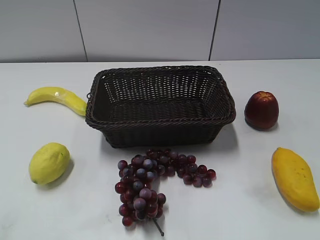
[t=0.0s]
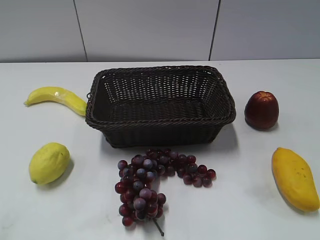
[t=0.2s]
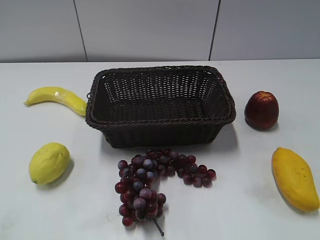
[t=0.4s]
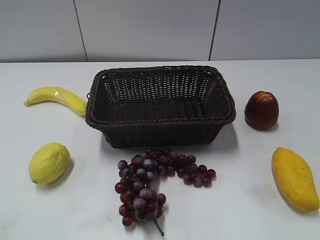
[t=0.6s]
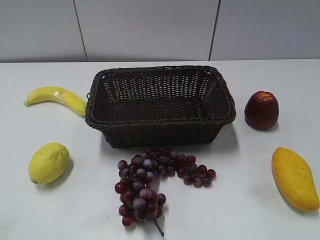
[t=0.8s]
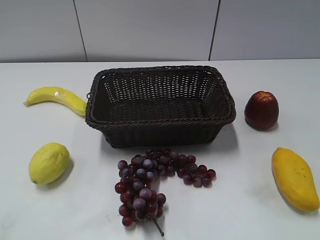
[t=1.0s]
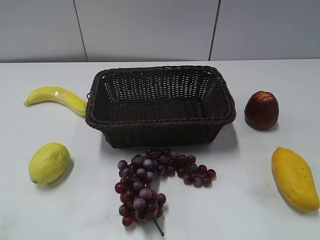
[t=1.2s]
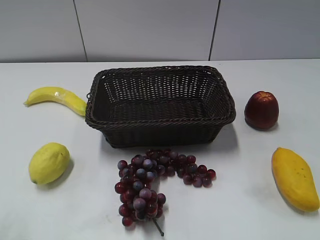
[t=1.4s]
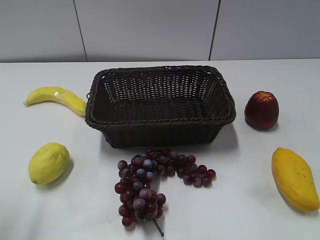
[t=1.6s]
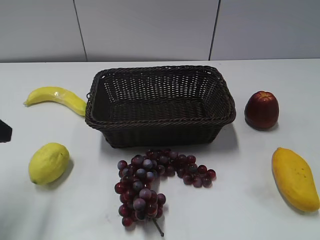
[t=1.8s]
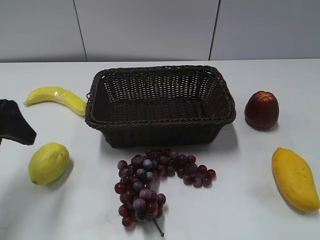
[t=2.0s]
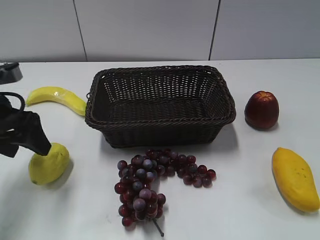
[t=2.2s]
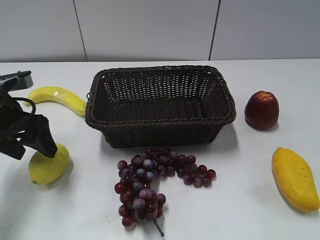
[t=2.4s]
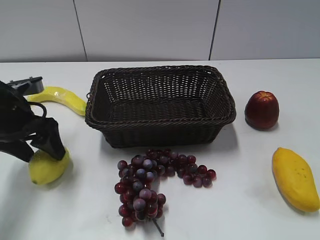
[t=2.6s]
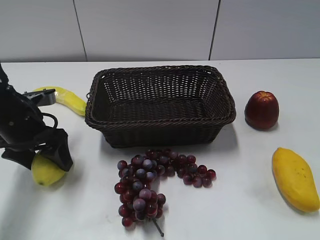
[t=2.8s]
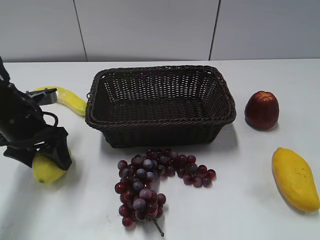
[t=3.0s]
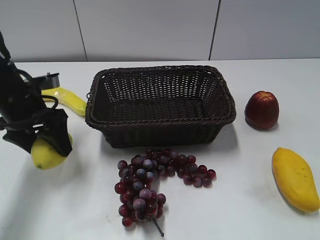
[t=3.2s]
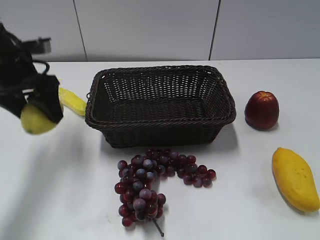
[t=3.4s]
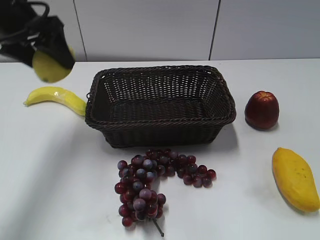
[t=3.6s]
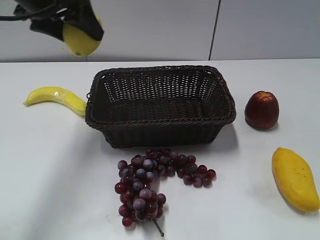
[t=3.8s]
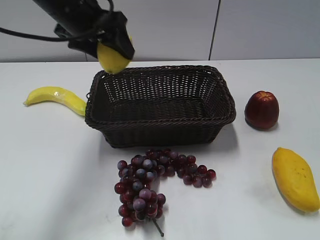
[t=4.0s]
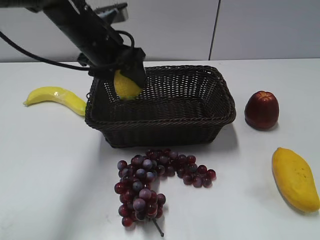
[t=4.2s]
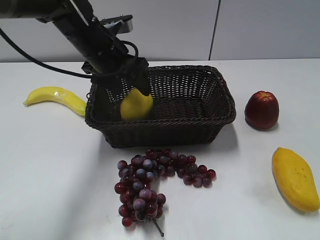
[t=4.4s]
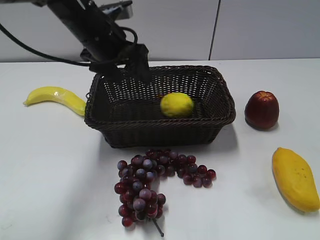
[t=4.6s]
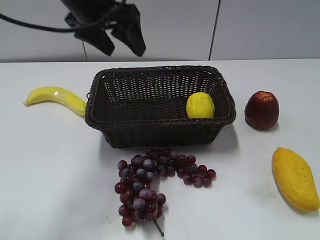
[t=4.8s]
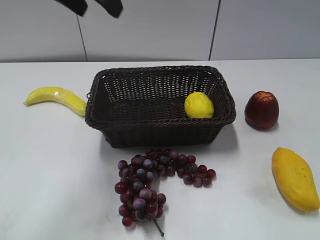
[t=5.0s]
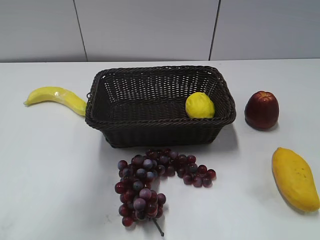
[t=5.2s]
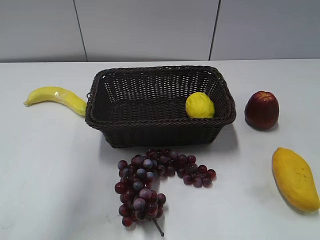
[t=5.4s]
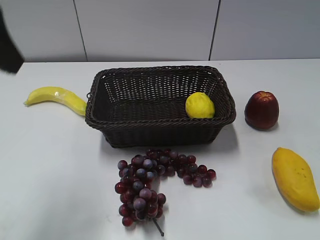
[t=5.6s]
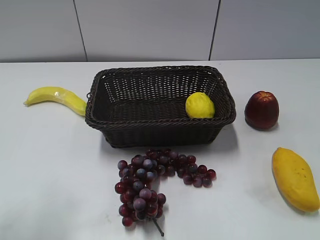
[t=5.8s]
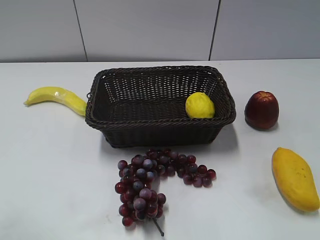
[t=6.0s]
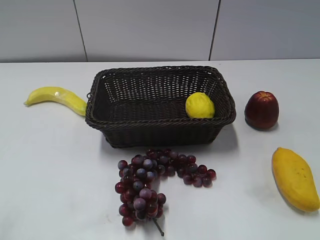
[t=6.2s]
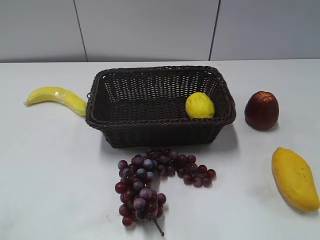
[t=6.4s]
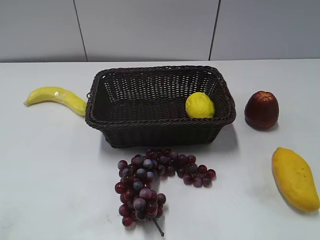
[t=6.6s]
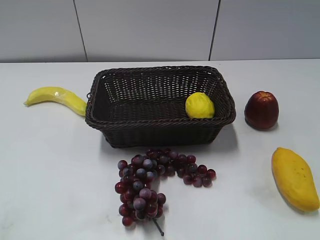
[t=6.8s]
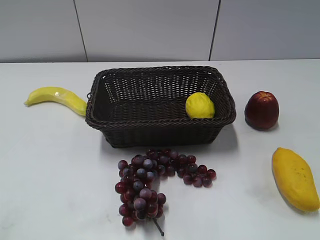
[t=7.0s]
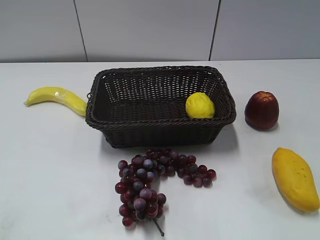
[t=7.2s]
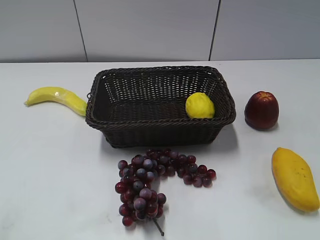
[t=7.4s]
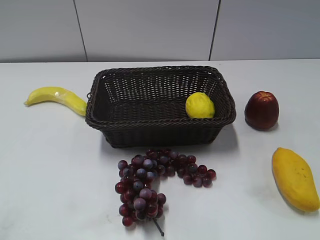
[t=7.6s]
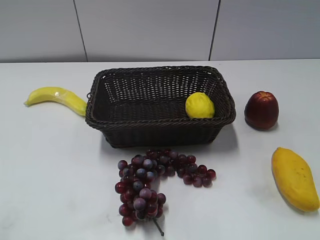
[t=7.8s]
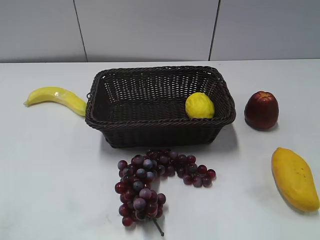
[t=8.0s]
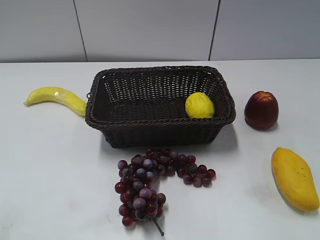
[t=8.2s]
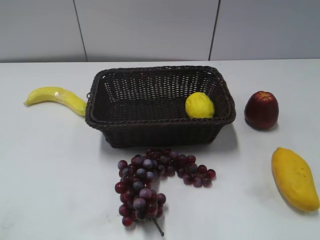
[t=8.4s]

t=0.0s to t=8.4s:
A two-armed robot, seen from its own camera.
Step, t=1.8s to t=3.0s: Grasp the lemon with left gripper.
Step, t=3.4s to t=4.8s: Place the lemon in the basket with left gripper.
t=1.4s to t=2.8s: The left gripper heads forward and downward, covering roughly 25 cm.
t=2.8s to t=4.2s: The left gripper heads to the right, upward and forward, covering approximately 20 cm.
t=4.2s to t=5.6s: The left gripper goes roughly 25 cm backward, upward and to the left.
t=5.6s to t=7.0s: The left gripper goes some 20 cm backward, downward and to the left.

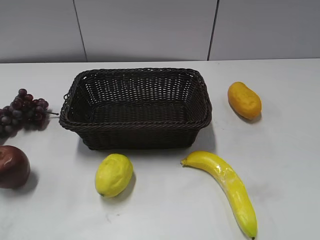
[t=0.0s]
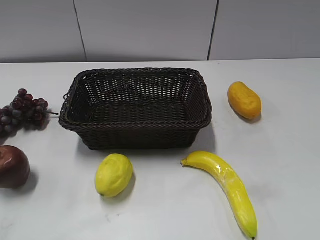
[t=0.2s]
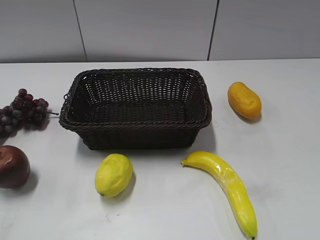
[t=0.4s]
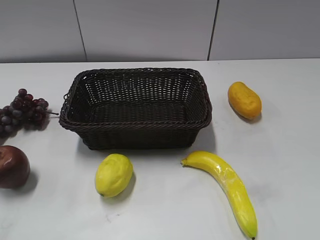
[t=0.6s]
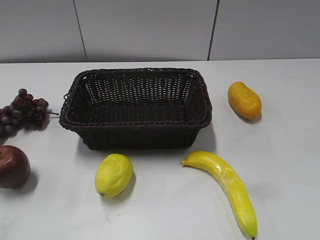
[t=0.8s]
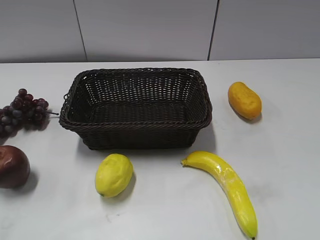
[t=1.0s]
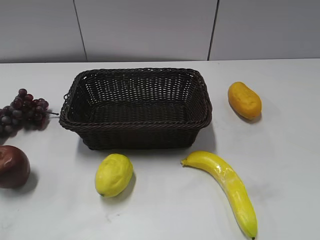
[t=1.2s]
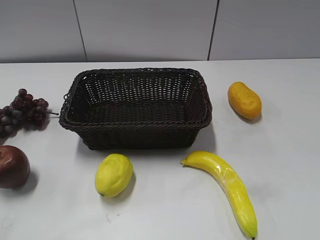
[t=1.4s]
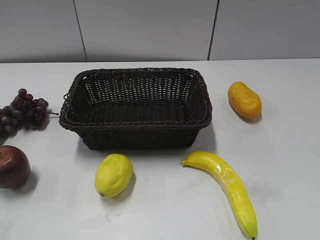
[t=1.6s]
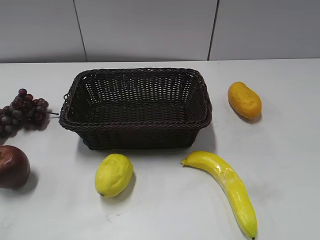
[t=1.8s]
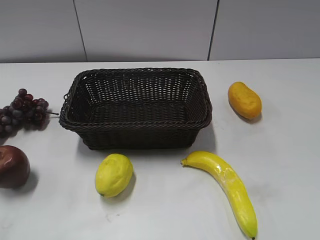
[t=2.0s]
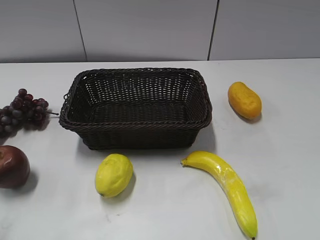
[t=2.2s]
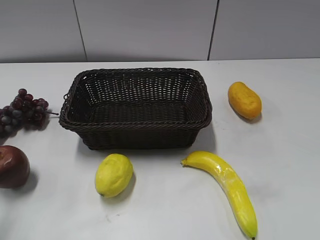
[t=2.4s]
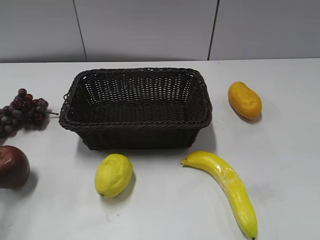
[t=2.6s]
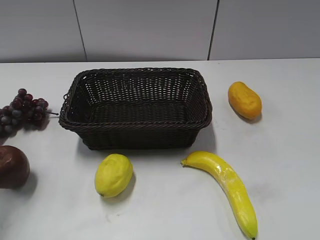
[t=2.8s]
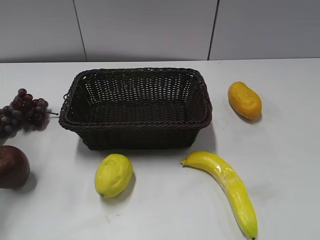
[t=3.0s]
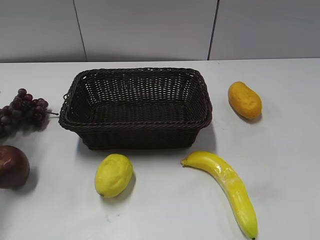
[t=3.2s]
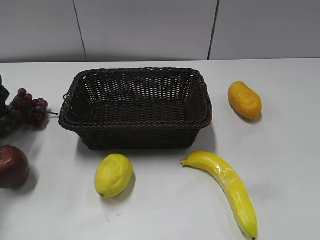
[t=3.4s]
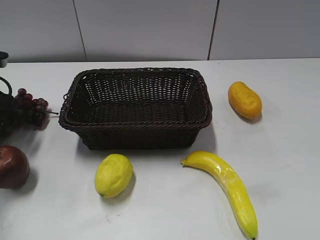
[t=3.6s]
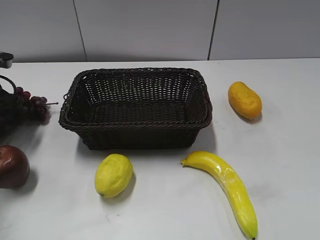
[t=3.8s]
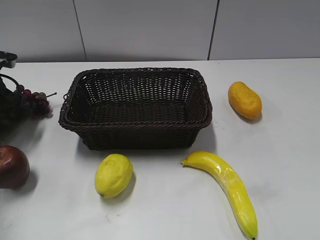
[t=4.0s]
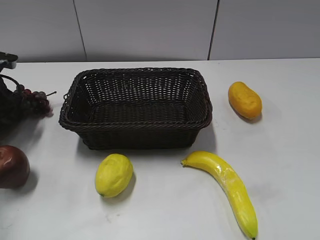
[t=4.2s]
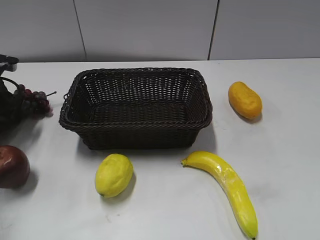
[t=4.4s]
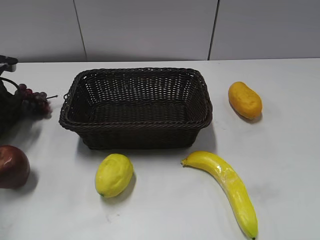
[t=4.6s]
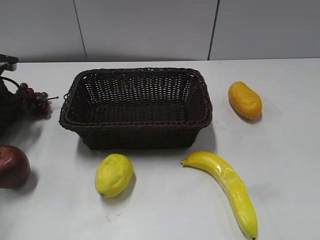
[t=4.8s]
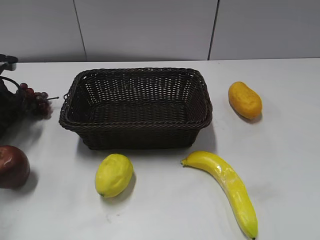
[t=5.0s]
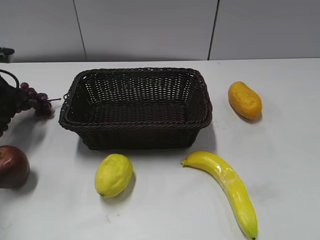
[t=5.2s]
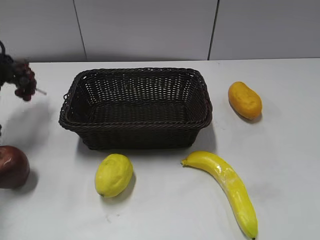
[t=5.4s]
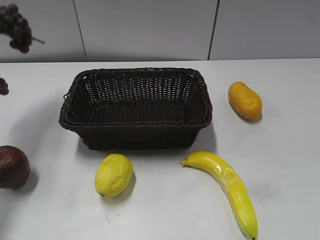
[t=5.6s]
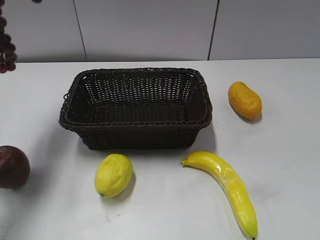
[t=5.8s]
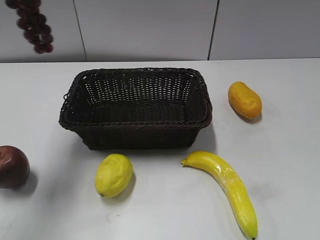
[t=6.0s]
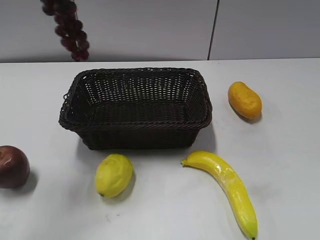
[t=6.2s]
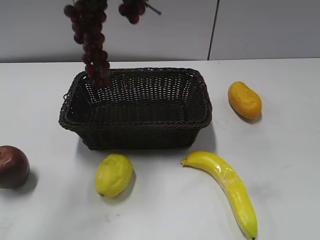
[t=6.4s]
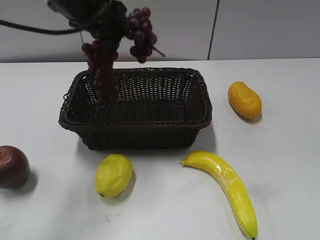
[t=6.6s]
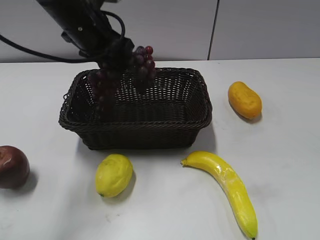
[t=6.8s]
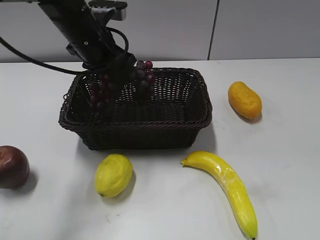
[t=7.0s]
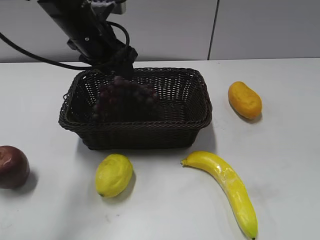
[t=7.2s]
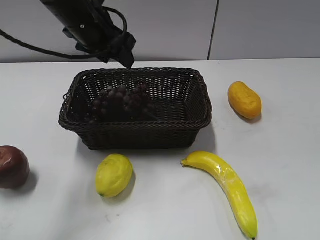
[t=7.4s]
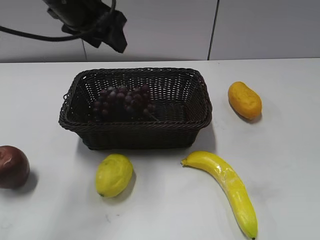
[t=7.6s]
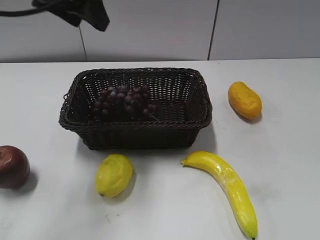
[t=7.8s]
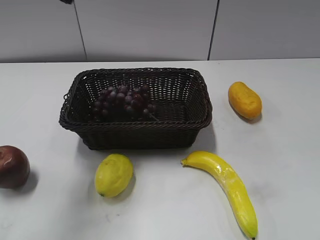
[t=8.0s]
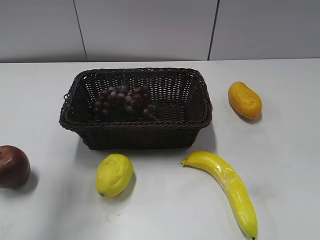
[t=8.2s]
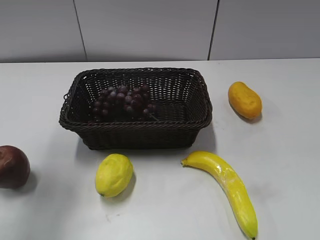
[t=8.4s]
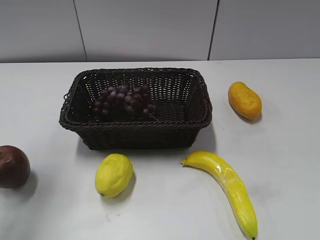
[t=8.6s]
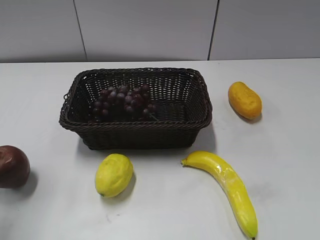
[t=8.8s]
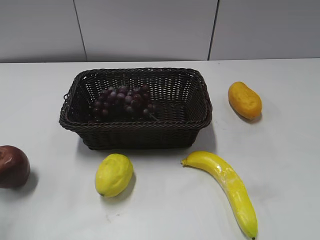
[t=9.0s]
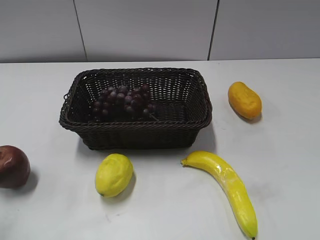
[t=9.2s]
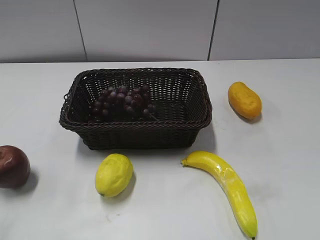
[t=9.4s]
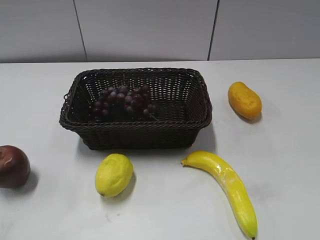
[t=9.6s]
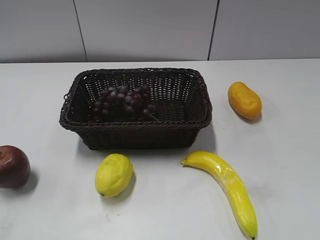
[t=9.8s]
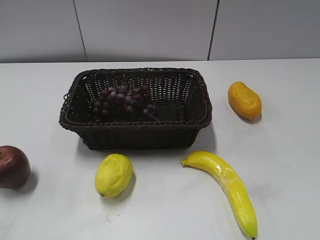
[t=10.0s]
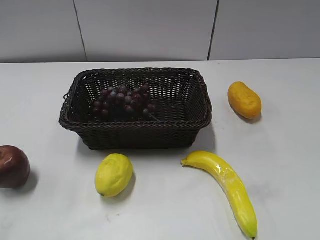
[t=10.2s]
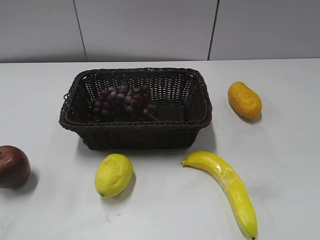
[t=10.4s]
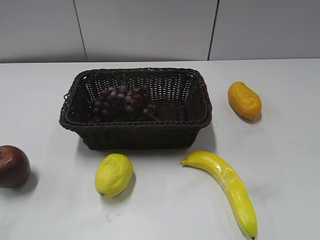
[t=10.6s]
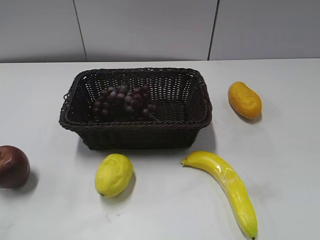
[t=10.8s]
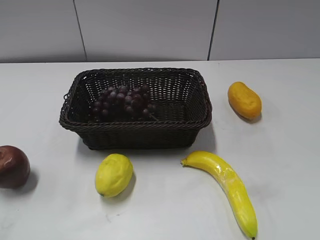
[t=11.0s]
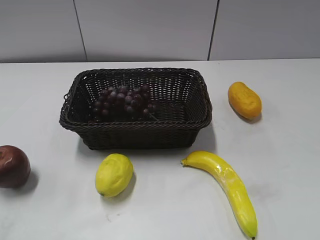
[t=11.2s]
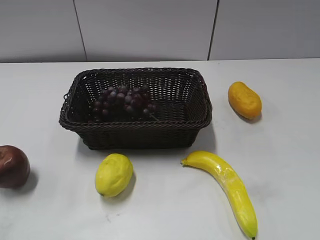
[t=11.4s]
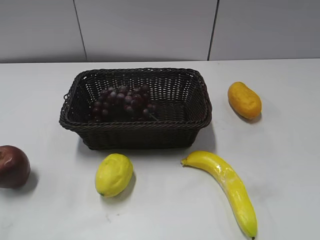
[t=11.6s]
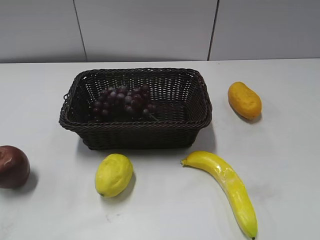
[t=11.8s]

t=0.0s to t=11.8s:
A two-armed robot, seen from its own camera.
Step, t=3.2s to t=5.2s: Grasp the grape with left gripper.
Step, t=5.4s to t=7.6s: Place the grape in the basket with left gripper.
t=1.4s to t=3.0s: The left gripper heads forward, covering approximately 30 cm, and opens.
t=3.0s to t=4.4s: The left gripper shifts about 20 cm downward and forward.
t=4.4s to t=6.0s: The left gripper travels upward by about 30 cm, and closes up.
t=6.0s to t=7.4s: The left gripper heads downward and to the right, covering about 20 cm, and opens its fingers.
t=7.4s to t=8.8s: The left gripper goes roughly 30 cm to the left, backward and upward.
t=8.8s to t=10.4s: The left gripper goes about 20 cm backward and downward.
